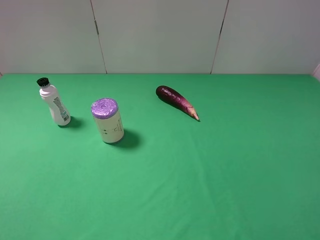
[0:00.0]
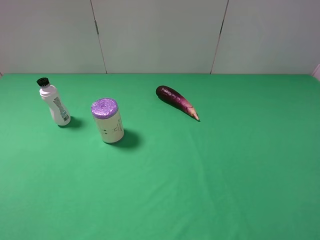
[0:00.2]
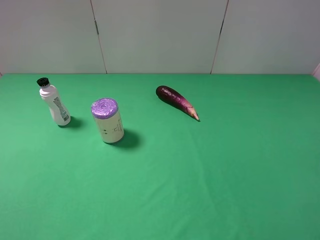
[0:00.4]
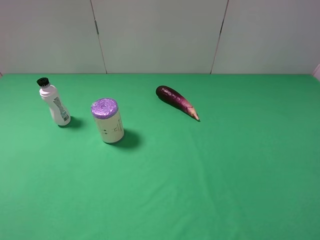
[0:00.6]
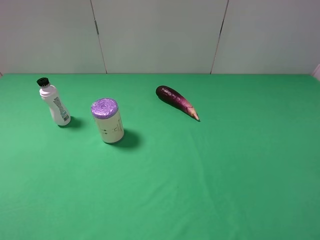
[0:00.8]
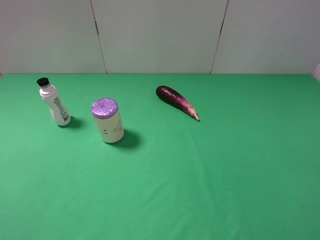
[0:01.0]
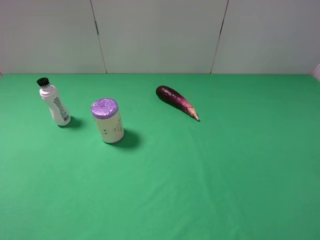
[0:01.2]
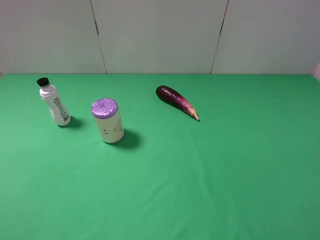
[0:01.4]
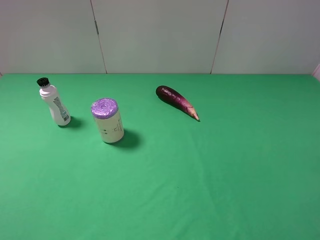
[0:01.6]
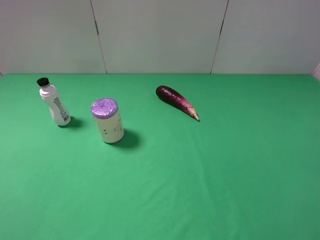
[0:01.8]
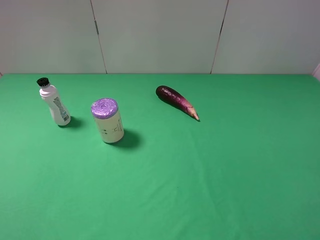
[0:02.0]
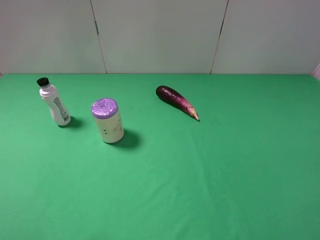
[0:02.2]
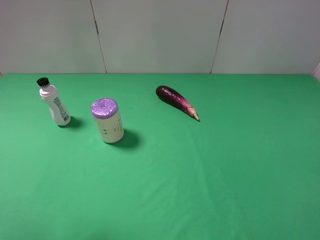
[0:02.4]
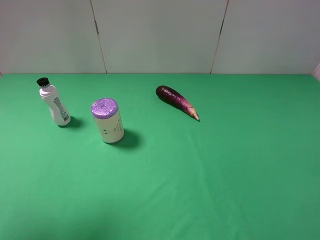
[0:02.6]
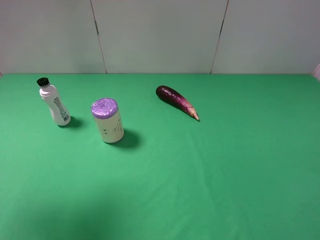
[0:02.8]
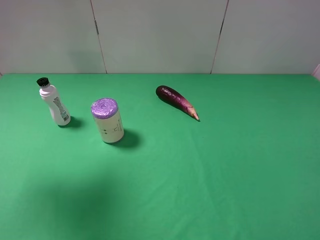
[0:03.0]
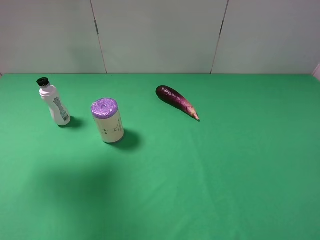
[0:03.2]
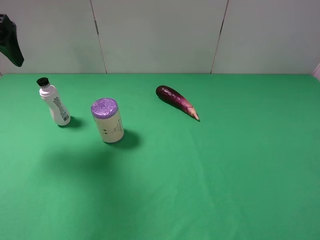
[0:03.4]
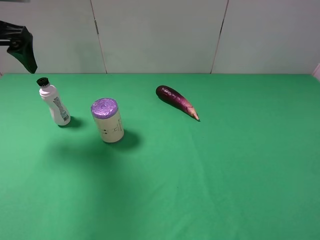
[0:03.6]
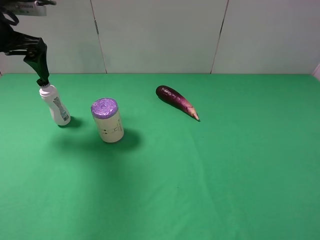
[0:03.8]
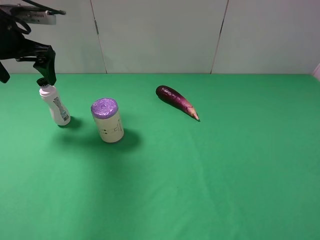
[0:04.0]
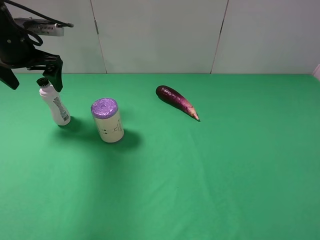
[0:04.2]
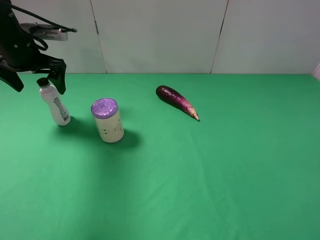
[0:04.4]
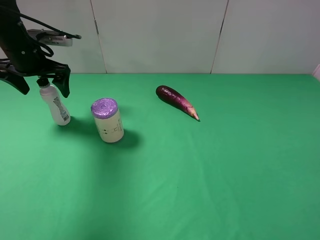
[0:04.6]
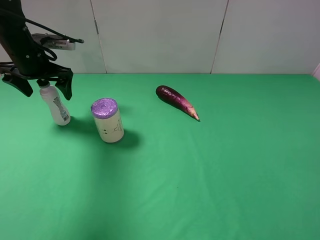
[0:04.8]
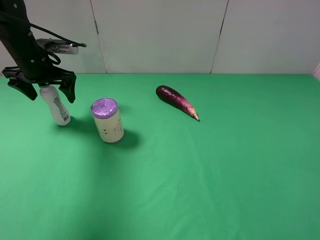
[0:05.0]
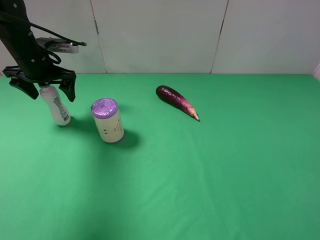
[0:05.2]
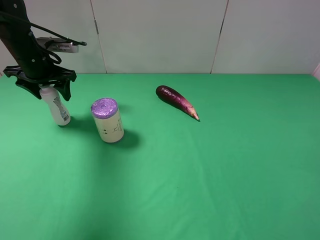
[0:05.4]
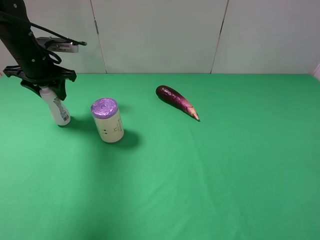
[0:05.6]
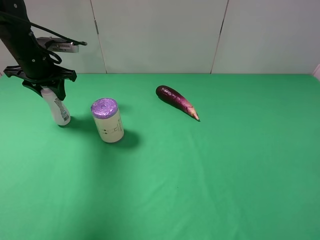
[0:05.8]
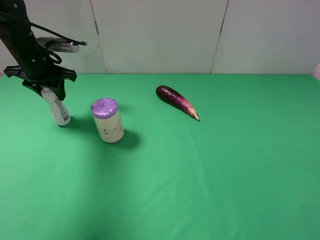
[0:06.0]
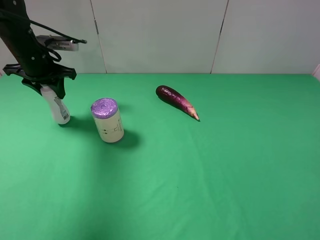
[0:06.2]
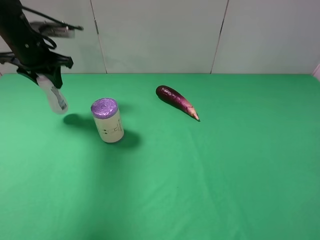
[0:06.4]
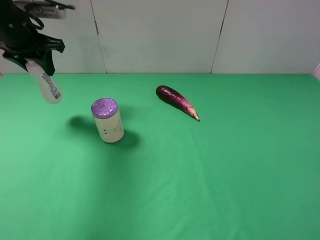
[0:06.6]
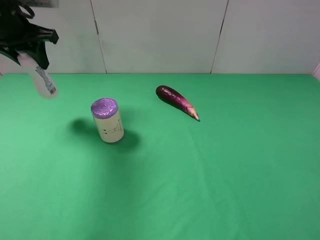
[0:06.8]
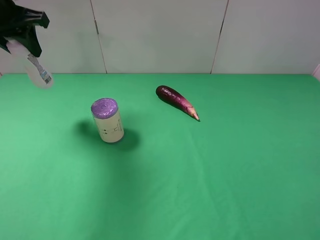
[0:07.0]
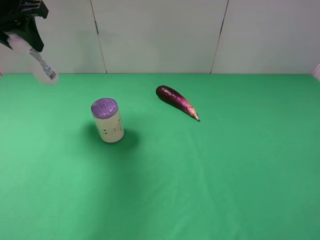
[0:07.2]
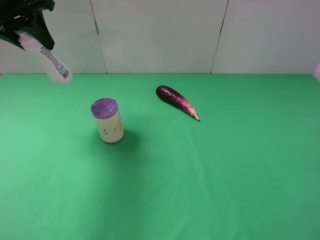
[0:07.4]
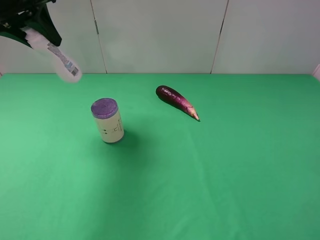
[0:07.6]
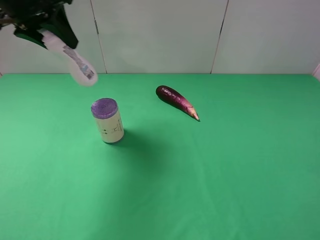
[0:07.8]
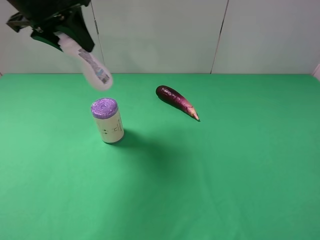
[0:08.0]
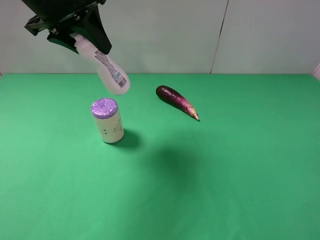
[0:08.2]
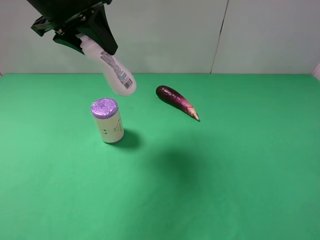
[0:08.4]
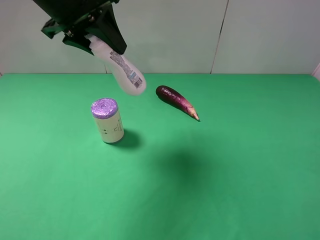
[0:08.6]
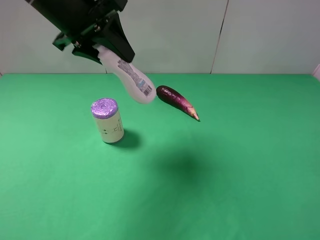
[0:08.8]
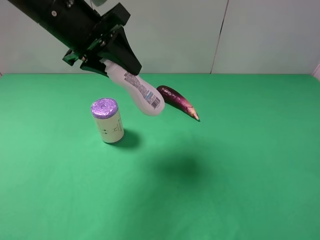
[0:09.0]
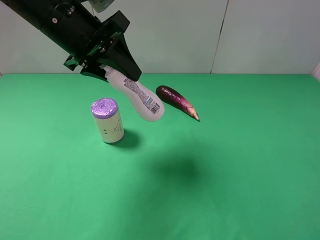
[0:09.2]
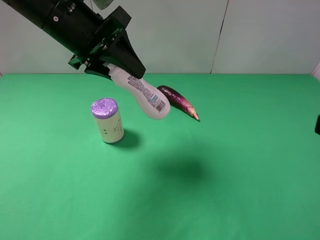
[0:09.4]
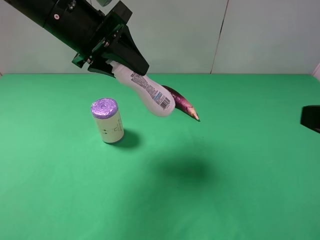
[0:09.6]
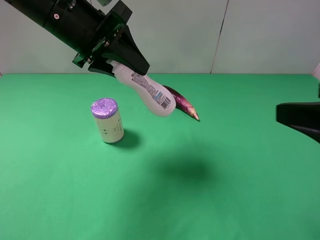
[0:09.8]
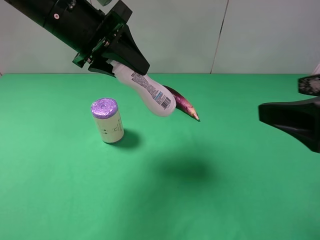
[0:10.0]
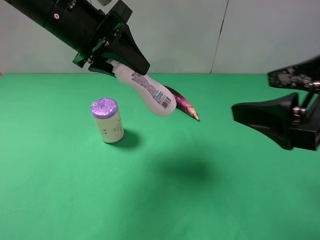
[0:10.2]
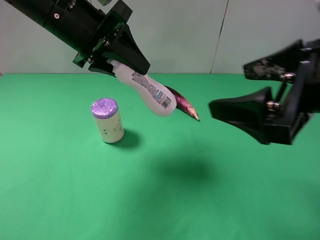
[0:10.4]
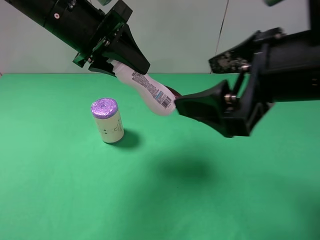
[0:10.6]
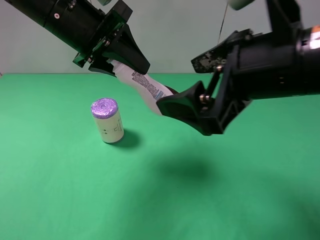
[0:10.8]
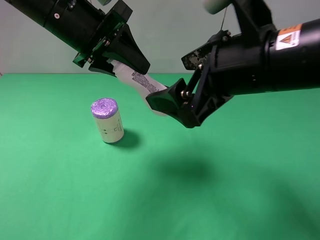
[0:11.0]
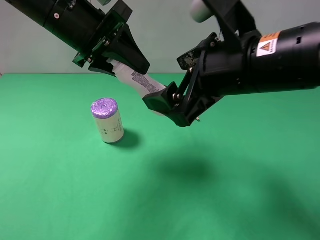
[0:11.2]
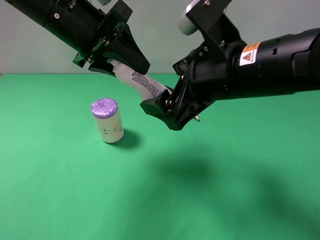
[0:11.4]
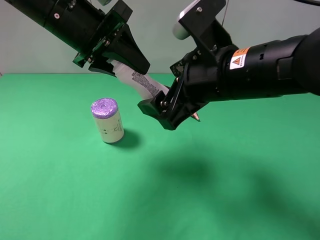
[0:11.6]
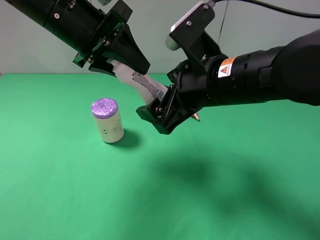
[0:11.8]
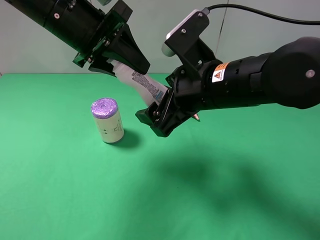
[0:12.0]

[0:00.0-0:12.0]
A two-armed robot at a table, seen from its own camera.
Task of the whole recording: use the left gripper to pick up the item and transfer it from the left gripper to the right gripper.
Step, 0:00.0 to 0:05.6: Use the left gripper to grab the cleaning agent on the left side of the table.
0:00.0 to 0:01.6: Neither gripper changes place.
0:01.6 to 0:03.0: The left gripper travels forward and upward by some 25 cm.
0:03.0 to 0:04.4: The left gripper travels downward and forward by about 20 cm.
0:04.4 to 0:06.0: The left gripper closes its fingers.
0:06.0 to 0:07.6: The left gripper travels upward by some 15 cm.
0:07.6 to 0:09.0: The left gripper heads to the right, covering approximately 10 cm.
0:09.0 to 0:10.4: The right gripper travels forward and to the left by about 15 cm.
0:10.4 to 0:12.0: The right gripper goes approximately 15 cm to the left, forward and downward.

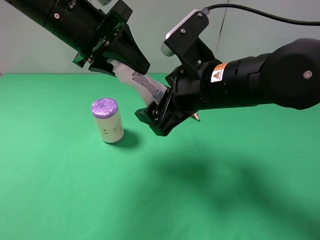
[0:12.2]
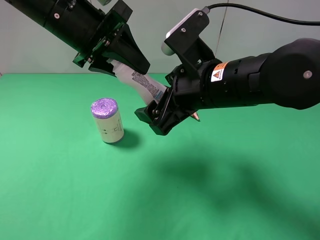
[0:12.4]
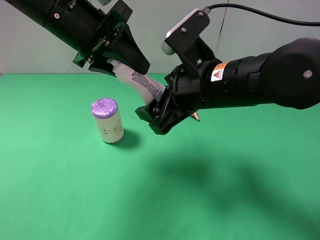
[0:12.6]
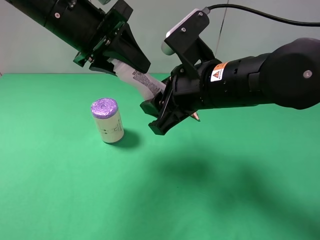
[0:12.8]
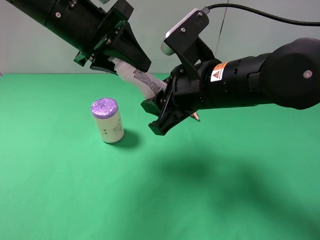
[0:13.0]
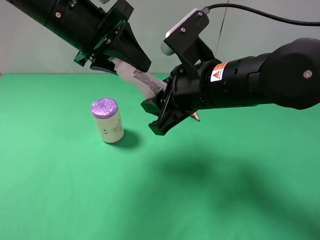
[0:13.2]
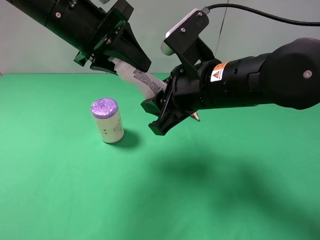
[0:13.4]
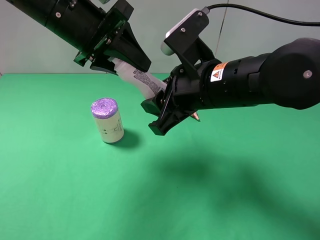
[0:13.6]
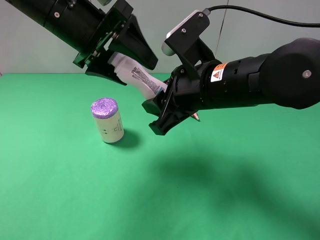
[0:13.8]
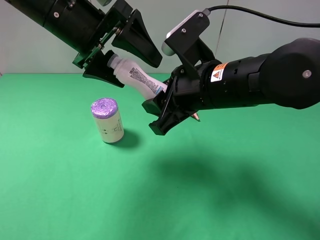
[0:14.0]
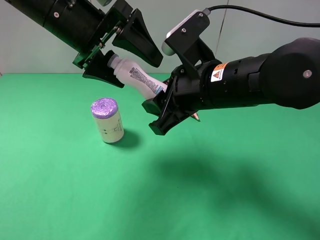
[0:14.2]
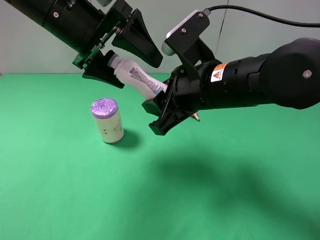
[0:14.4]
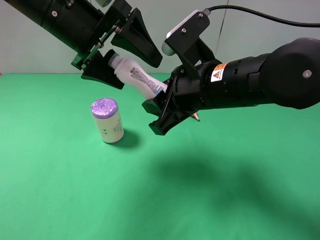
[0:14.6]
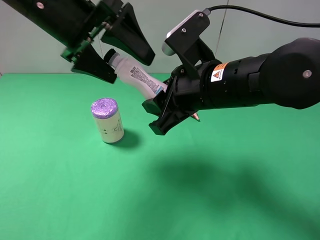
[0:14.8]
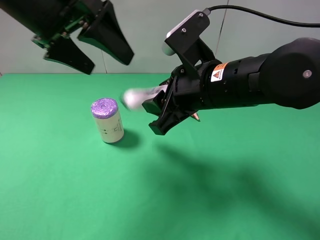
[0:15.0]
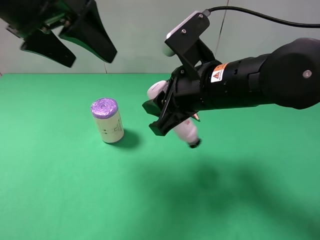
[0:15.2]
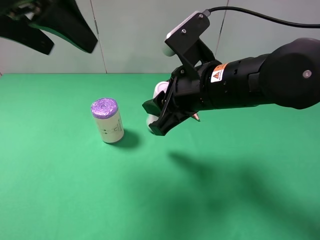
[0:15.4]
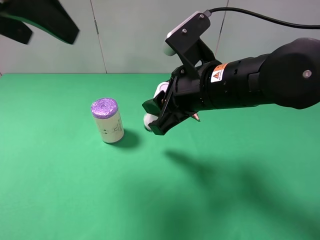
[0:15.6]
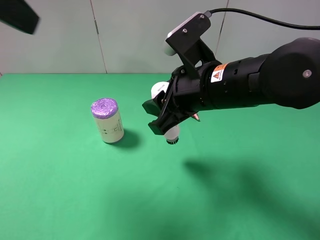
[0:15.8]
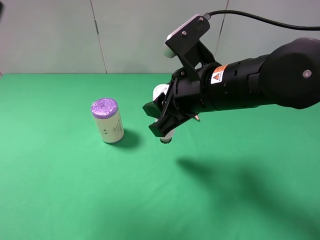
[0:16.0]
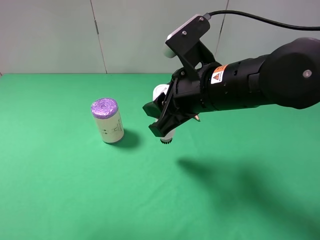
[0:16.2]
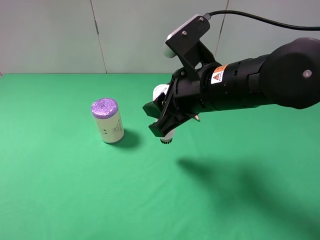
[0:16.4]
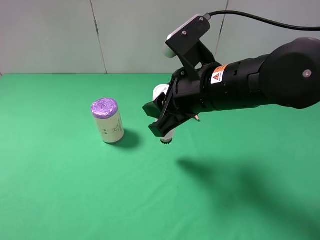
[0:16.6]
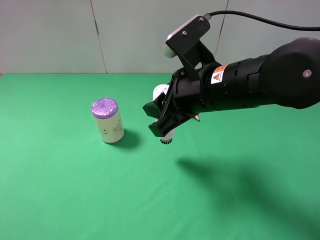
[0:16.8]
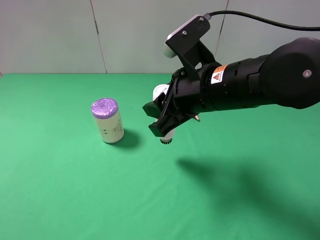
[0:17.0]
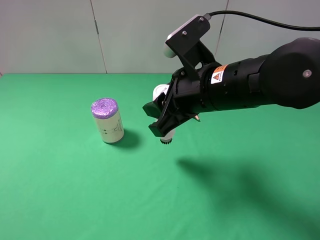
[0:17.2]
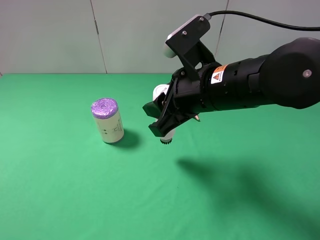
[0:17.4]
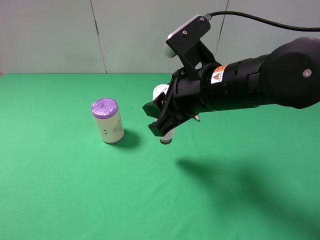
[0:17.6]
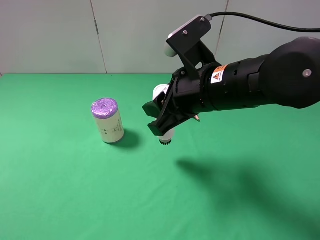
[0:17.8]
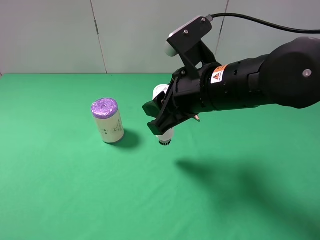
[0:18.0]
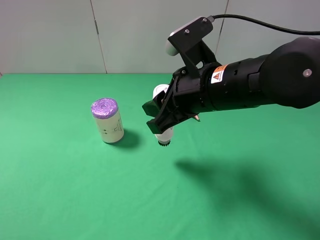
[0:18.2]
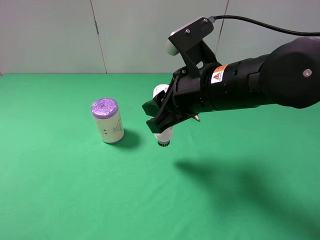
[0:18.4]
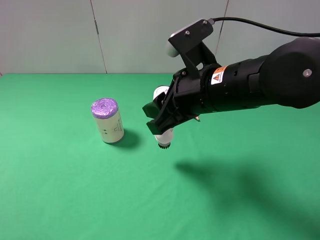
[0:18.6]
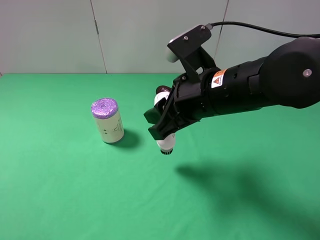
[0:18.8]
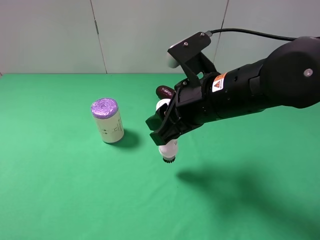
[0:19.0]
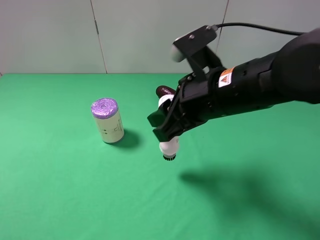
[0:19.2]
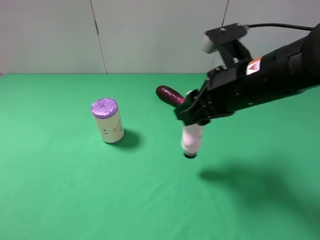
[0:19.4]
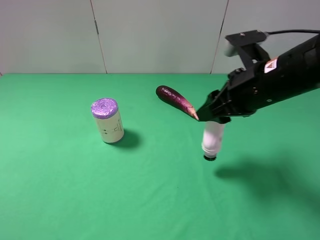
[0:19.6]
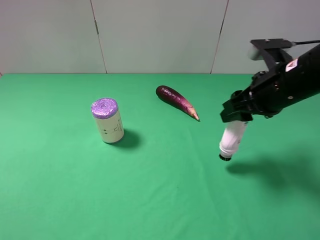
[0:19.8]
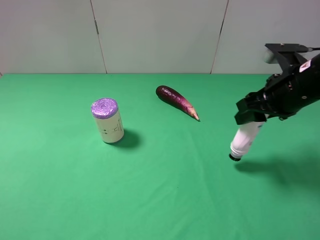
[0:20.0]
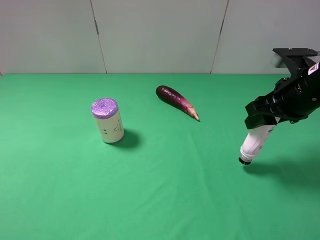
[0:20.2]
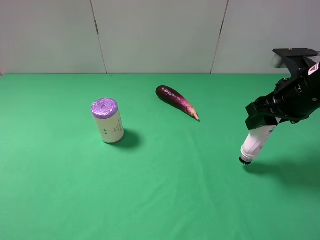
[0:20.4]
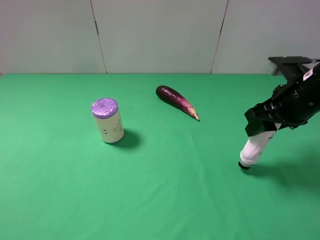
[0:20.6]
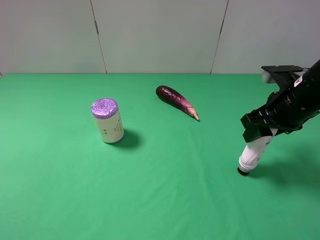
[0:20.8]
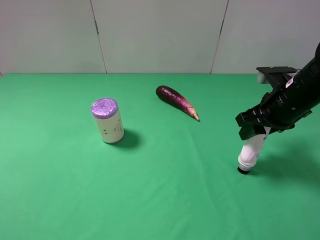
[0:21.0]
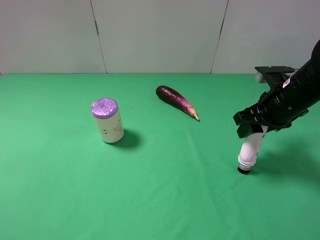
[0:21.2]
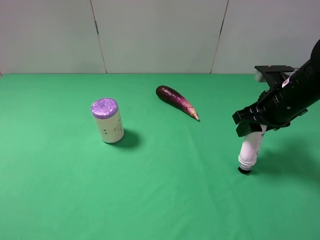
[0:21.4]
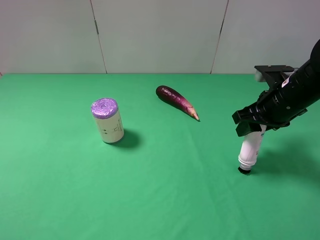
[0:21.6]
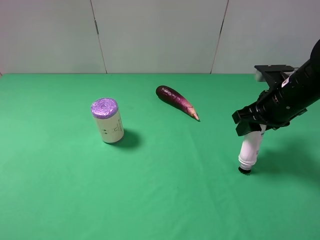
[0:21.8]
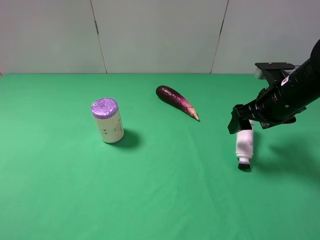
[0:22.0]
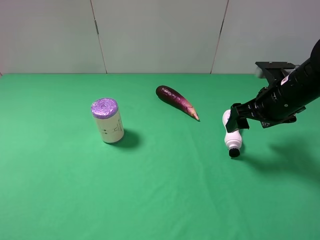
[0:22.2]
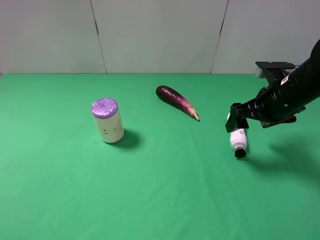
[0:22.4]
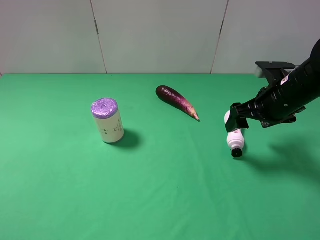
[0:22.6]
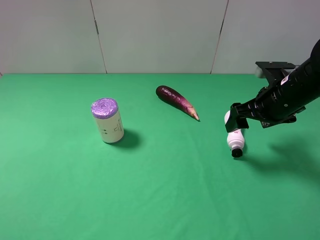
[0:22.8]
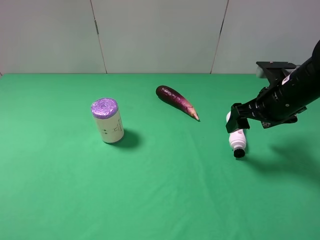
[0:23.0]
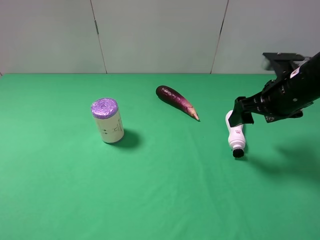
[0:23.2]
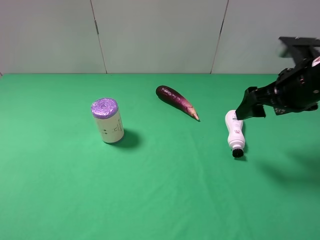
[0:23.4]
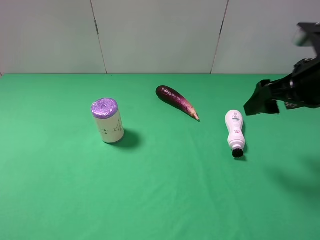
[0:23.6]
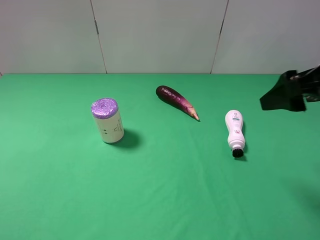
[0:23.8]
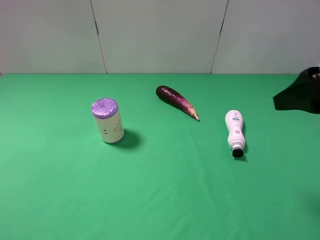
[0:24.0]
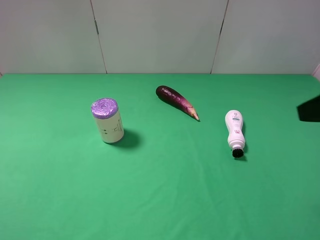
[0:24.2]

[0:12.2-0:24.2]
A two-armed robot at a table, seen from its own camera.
Task of the whole recording: use the left gripper to pick up the item and transfer it from the left gripper to the right gripper.
Step, 0:14.2 to 0:22.2: The right gripper places cleaning agent on the right side of the table.
0:12.2 to 0:13.8: The left gripper opens its fingers; the right gripper closes.
0:13.8 to 0:15.2: The left gripper is displaced upward by some 5 cm.
0:15.2 to 0:16.6: The left gripper travels backward, to the left and upward by approximately 25 cm.
0:16.6 to 0:18.2: The left gripper shifts approximately 20 cm downward.
0:18.2 to 0:19.8: The right gripper travels to the right by roughly 10 cm.
0:19.8 to 0:21.2: The right gripper changes place by roughly 5 cm.
0:21.2 to 0:22.6: The right gripper opens.
0:22.6 to 0:24.2: The right gripper goes roughly 20 cm backward and upward.
